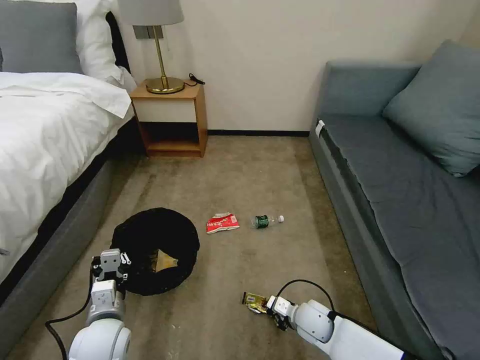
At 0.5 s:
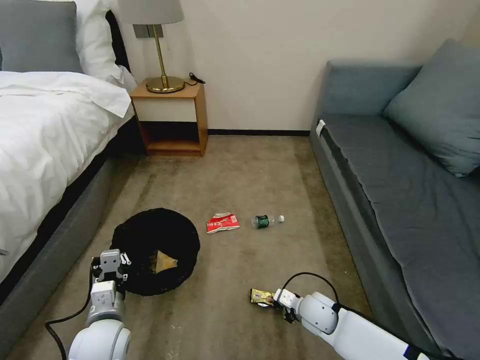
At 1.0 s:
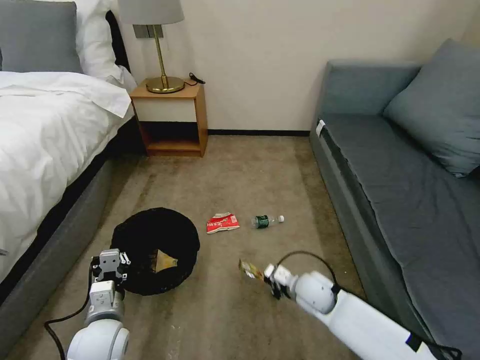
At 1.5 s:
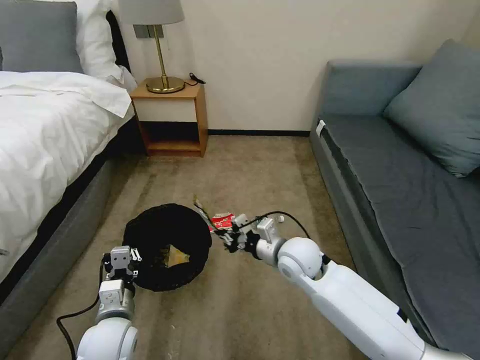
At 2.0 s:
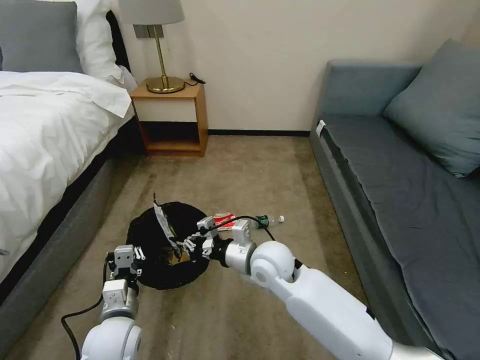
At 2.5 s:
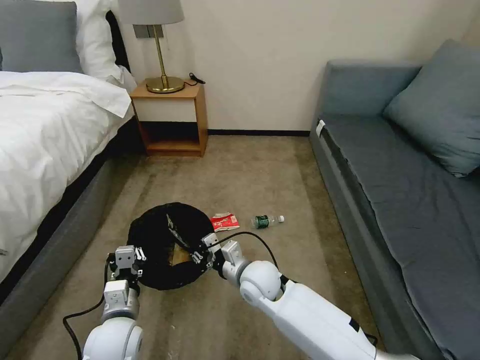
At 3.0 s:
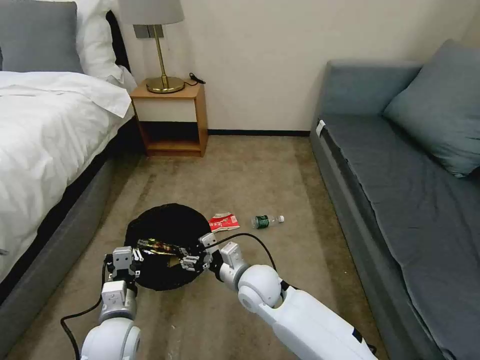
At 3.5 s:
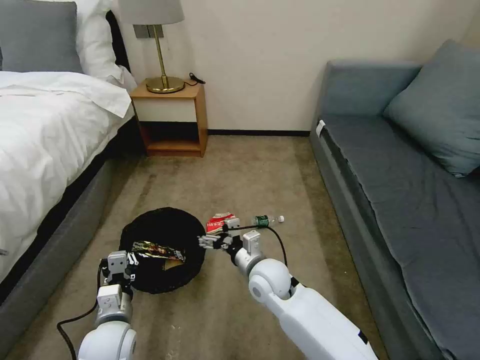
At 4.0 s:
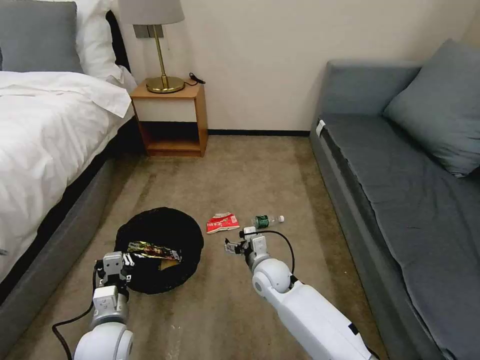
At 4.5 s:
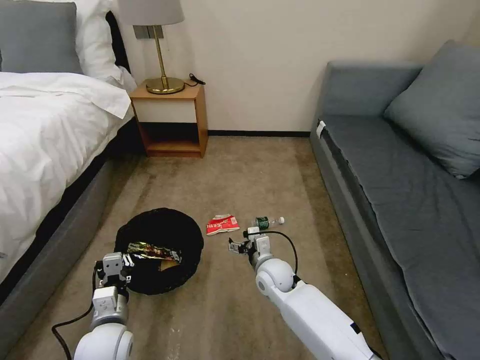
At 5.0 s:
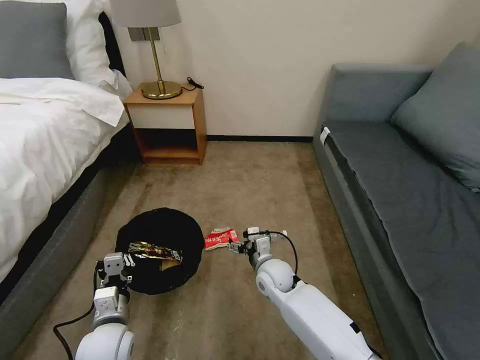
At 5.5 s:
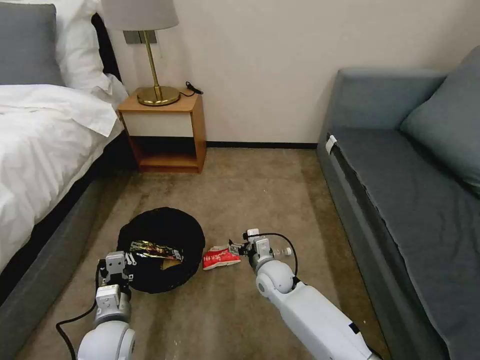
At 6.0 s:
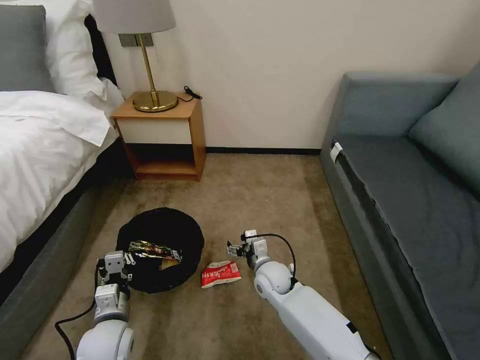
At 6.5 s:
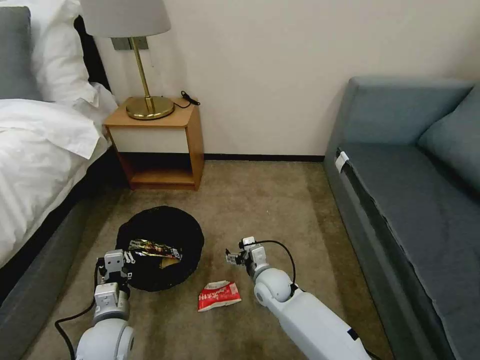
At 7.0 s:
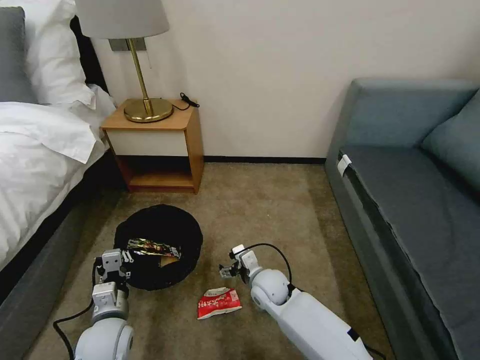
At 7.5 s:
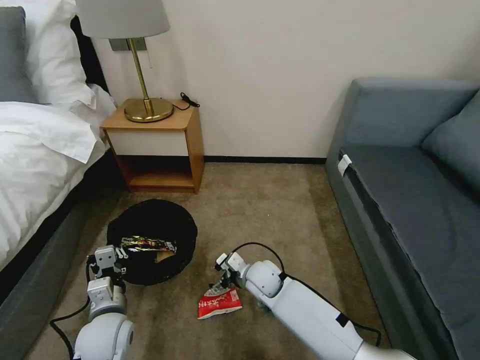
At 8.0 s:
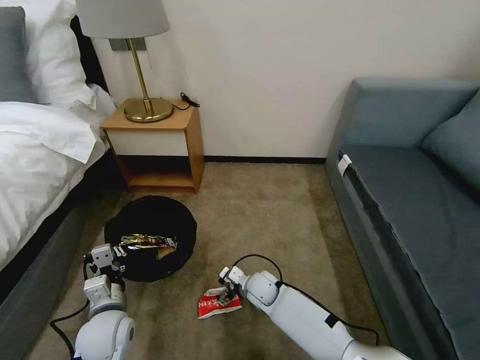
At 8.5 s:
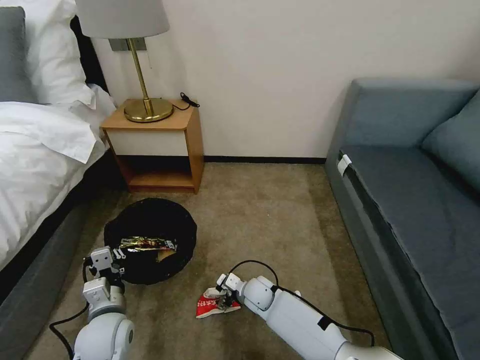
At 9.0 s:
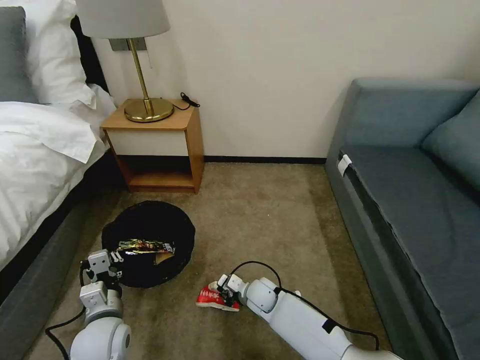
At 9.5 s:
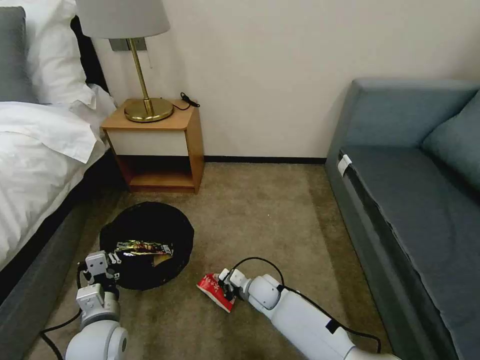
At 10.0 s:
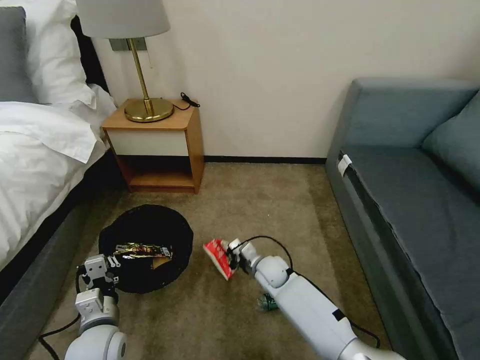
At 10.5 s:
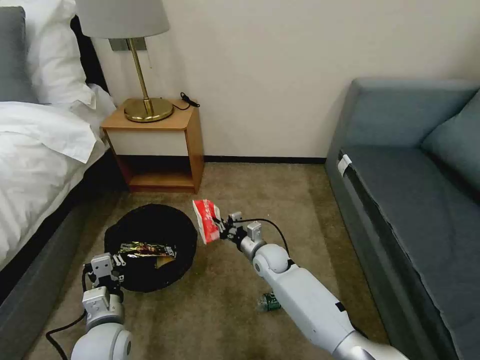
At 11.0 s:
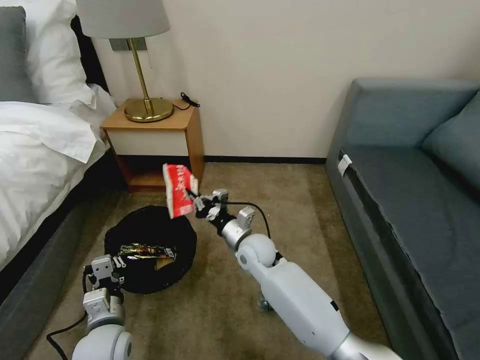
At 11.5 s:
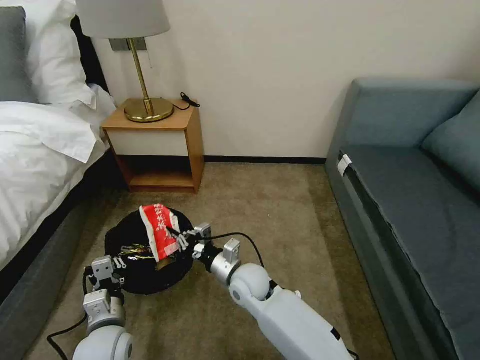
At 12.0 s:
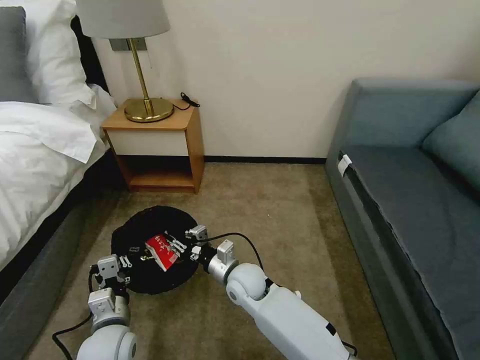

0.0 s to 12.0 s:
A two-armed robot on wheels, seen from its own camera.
Task of the whole recording: Pick up the trash bin, then pick up the garbage on the floor and place it into the trash bin.
0.0 to 2.0 s: The right gripper heads upward and to the left, covering about 25 cm.
2.0 to 4.0 s: The right gripper travels downward by roughly 10 cm, and opens.
6.0 to 8.0 s: The right gripper is displaced downward by some 5 cm.
8.0 to 10.0 s: The right gripper changes place by roughly 5 cm, and closes its fingers.
10.0 to 12.0 s: The right gripper is displaced to the left, upward and backward by about 15 cm, and opens its fingers.

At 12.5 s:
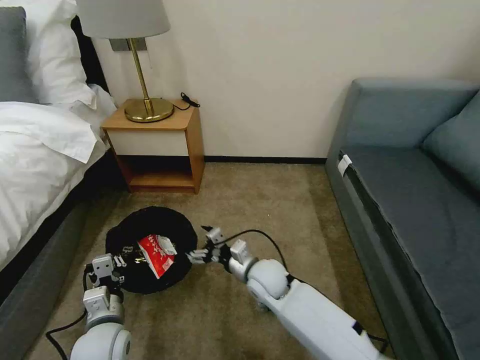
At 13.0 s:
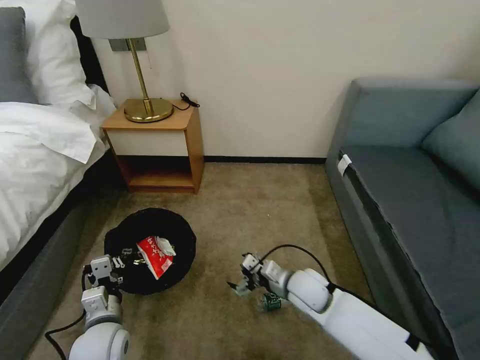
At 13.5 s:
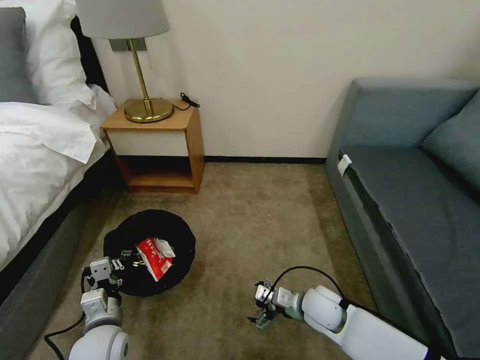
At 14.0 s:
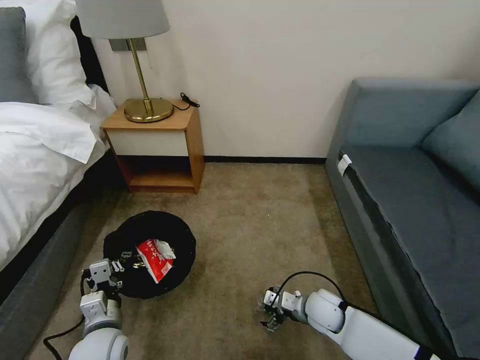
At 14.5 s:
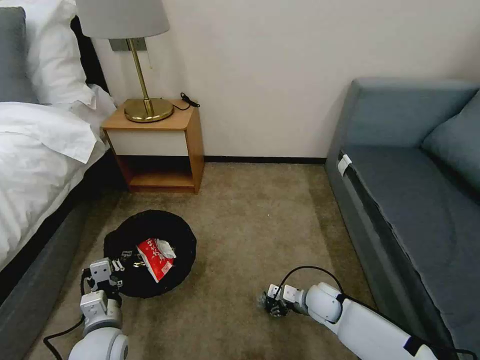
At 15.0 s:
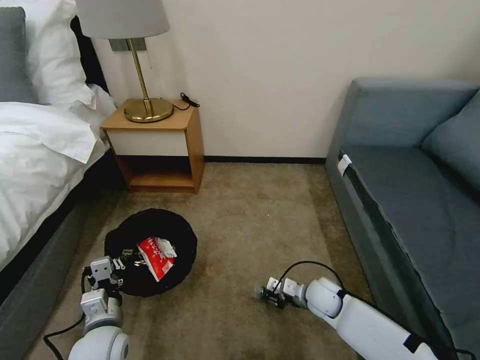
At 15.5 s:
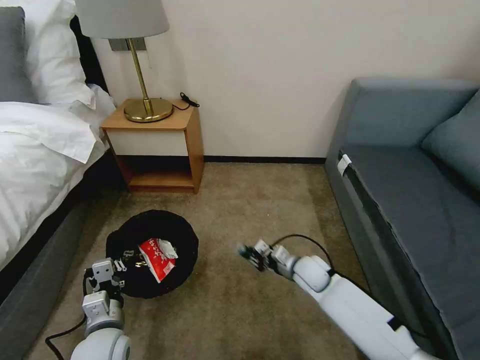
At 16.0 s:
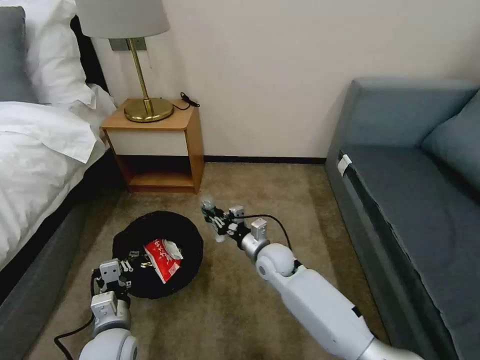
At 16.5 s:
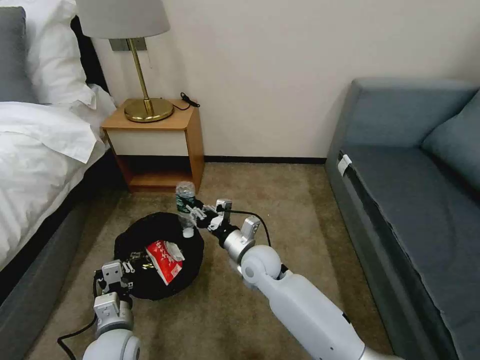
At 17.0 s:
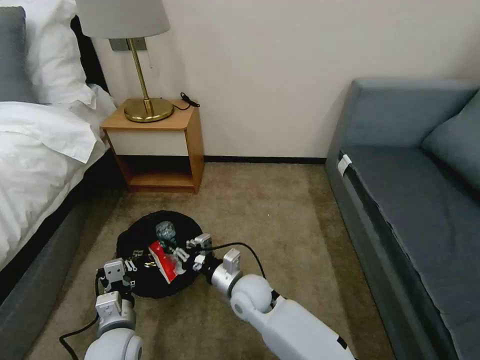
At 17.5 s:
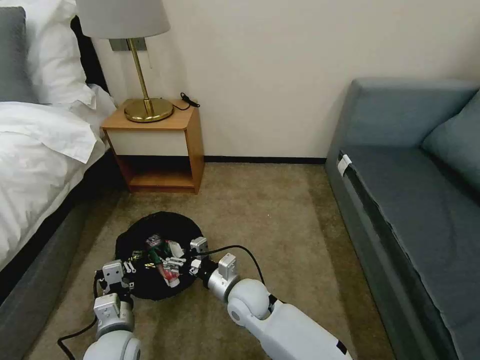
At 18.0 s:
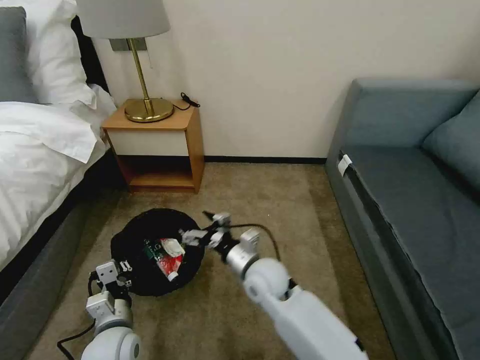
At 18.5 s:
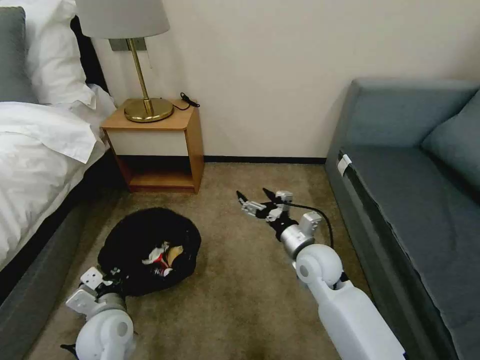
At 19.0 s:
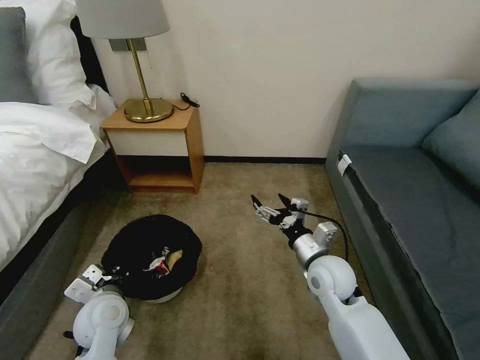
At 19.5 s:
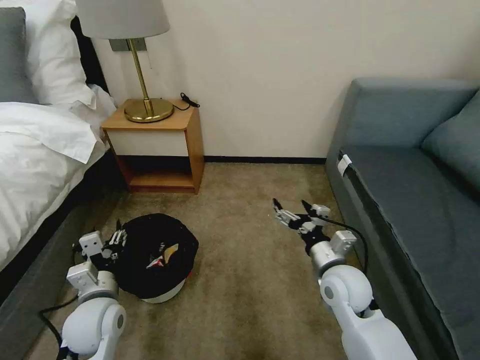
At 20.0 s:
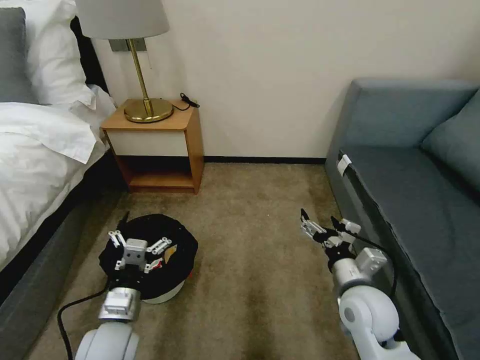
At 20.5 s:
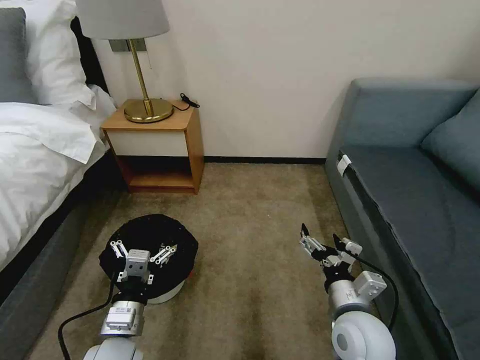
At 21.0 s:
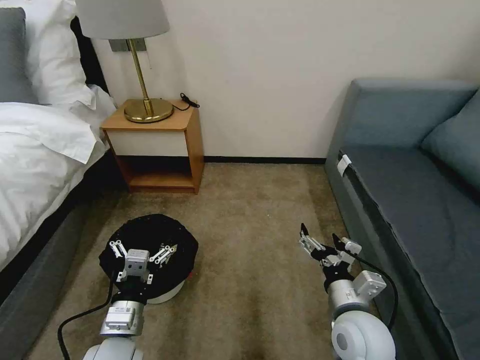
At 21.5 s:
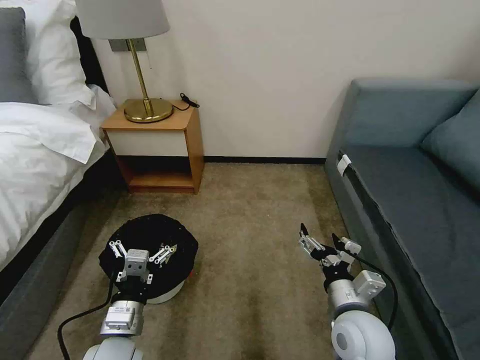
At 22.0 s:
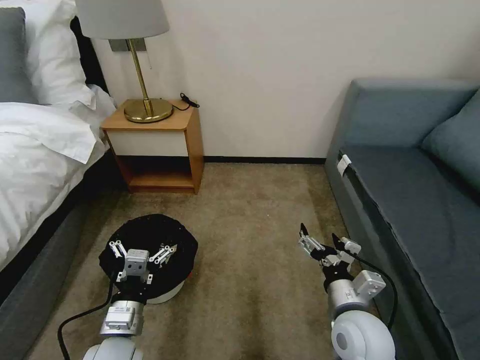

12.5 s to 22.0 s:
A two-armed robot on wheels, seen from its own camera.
Task of the whole recording: Pick up the trash bin, then pick up the garbage on the floor and place it into the trash bin.
12.5 to 14.5 s: The right gripper heads to the right and downward, covering about 20 cm.
14.5 to 16.5 s: The right gripper travels to the left and upward by approximately 20 cm, and closes its fingers.
16.5 to 18.0 s: The right gripper opens up.
18.0 to 20.0 s: The left gripper opens; the right gripper shifts approximately 20 cm to the right and backward.
20.0 to 22.0 s: The grippers stay close to where they were, moving slightly.
